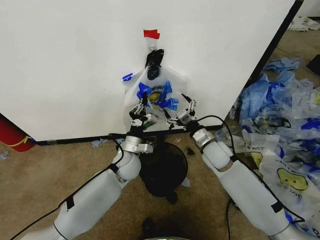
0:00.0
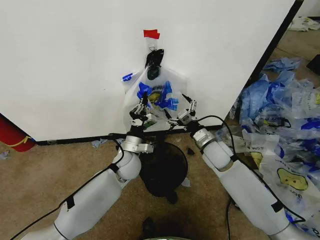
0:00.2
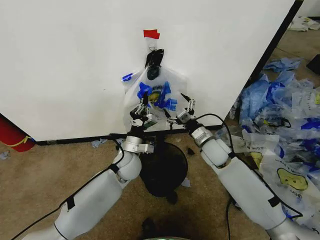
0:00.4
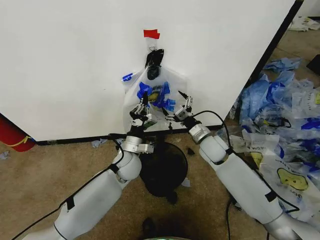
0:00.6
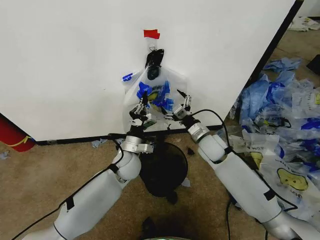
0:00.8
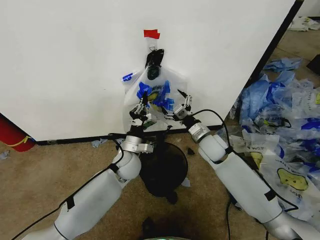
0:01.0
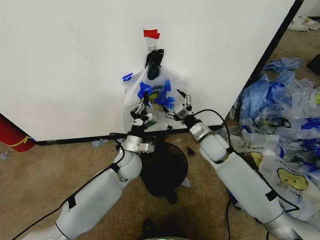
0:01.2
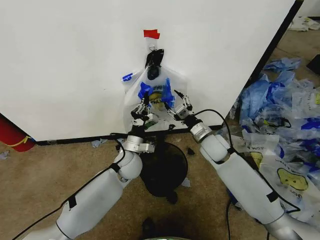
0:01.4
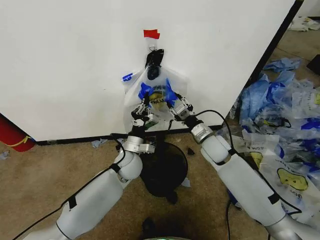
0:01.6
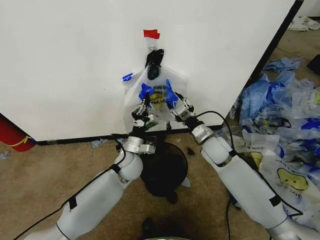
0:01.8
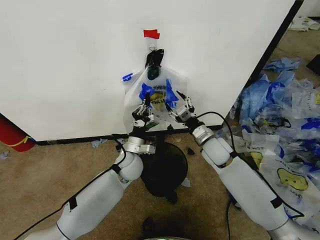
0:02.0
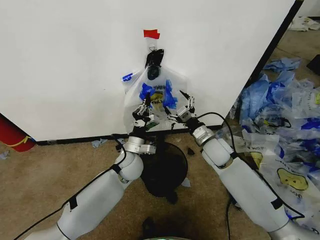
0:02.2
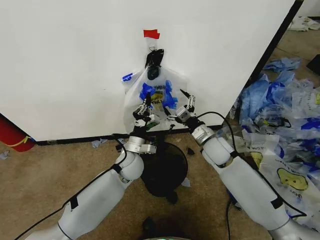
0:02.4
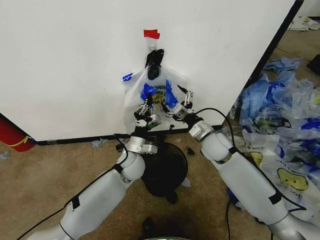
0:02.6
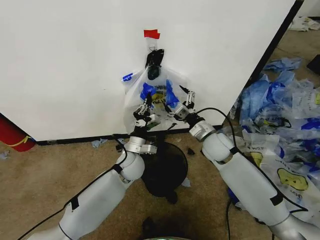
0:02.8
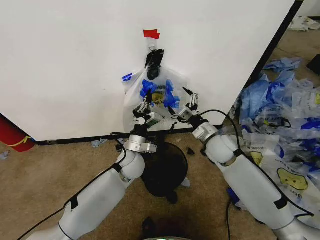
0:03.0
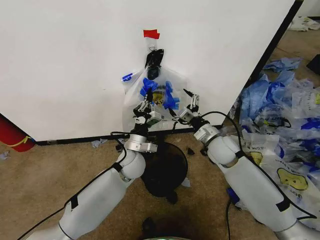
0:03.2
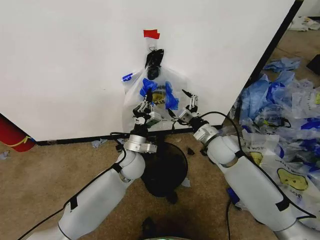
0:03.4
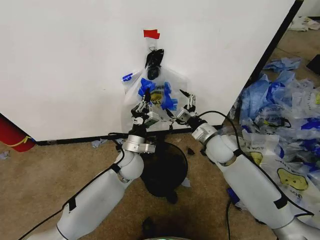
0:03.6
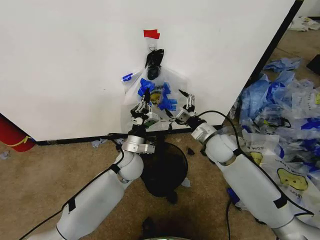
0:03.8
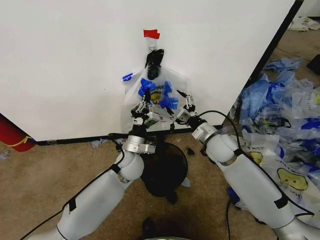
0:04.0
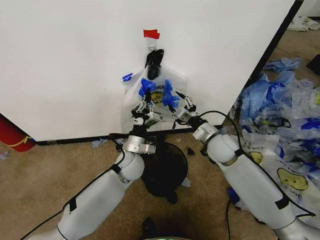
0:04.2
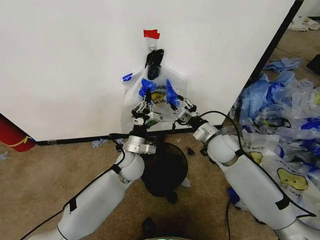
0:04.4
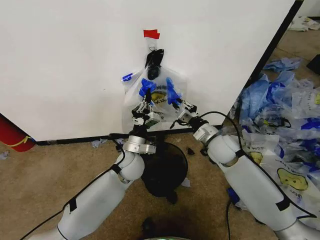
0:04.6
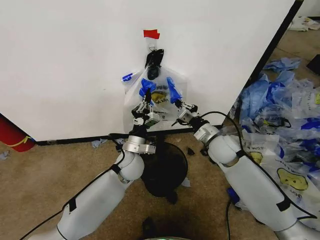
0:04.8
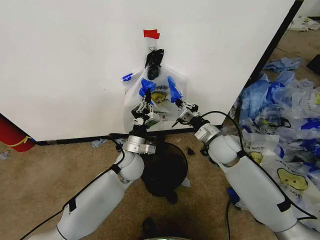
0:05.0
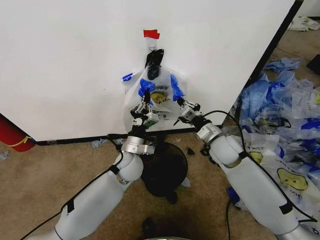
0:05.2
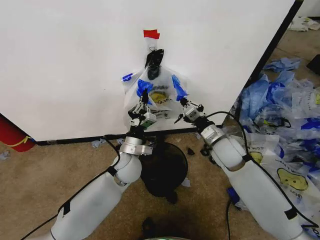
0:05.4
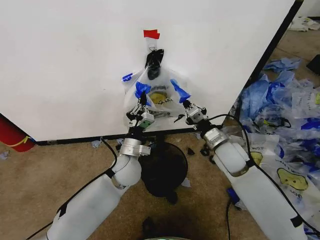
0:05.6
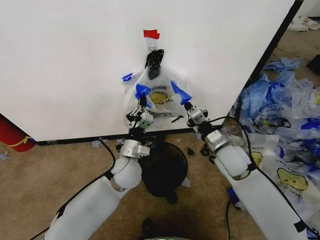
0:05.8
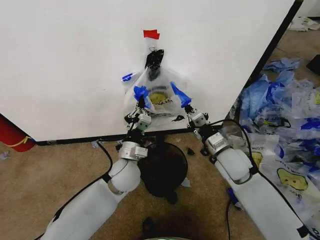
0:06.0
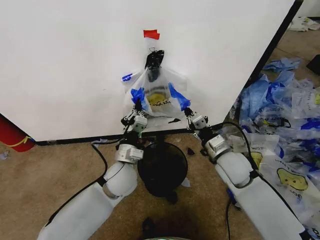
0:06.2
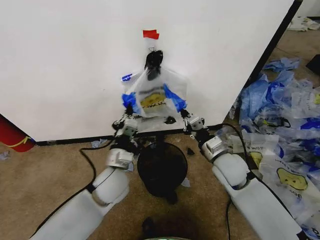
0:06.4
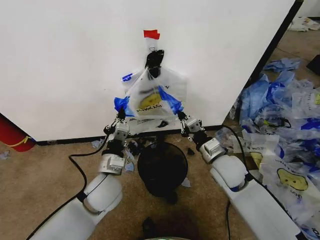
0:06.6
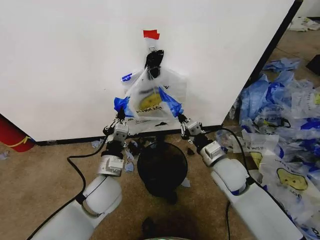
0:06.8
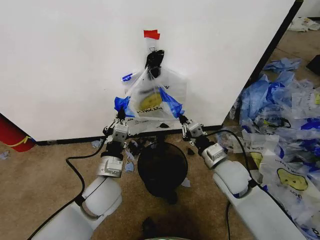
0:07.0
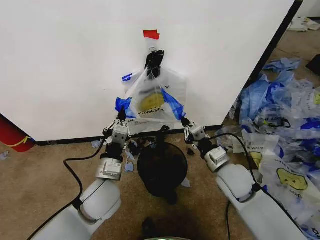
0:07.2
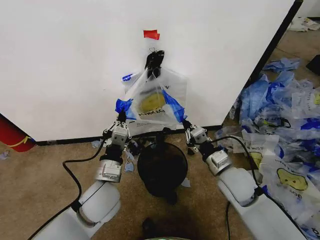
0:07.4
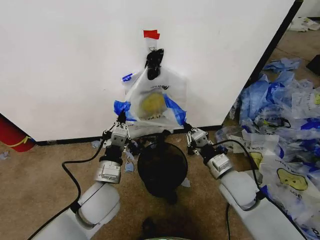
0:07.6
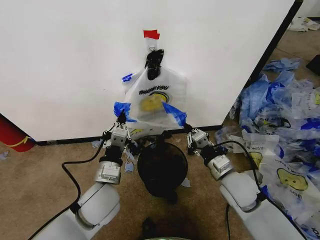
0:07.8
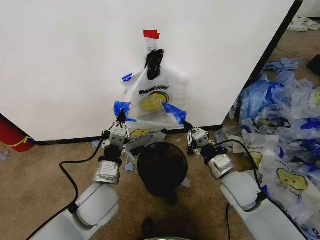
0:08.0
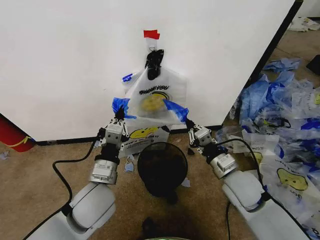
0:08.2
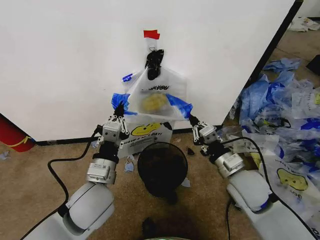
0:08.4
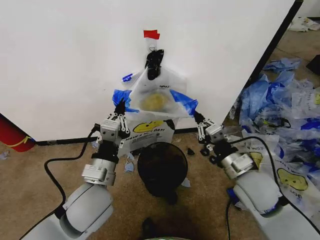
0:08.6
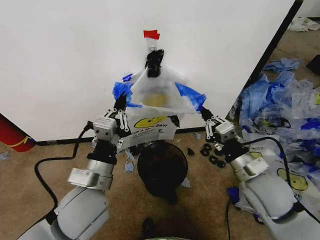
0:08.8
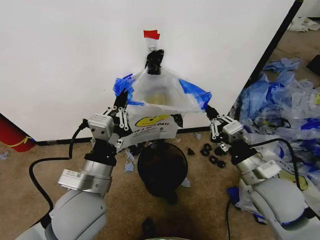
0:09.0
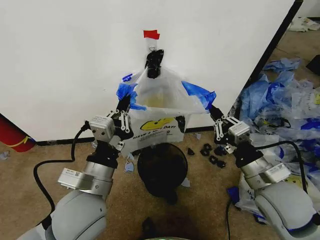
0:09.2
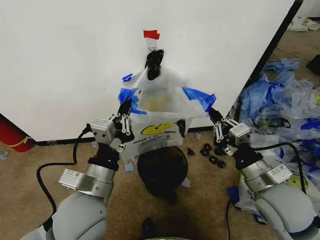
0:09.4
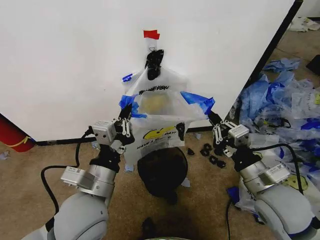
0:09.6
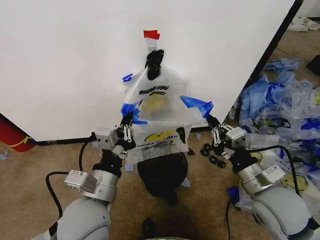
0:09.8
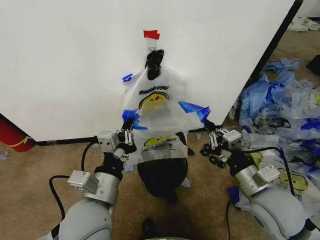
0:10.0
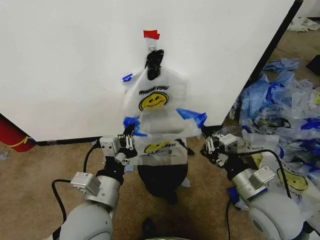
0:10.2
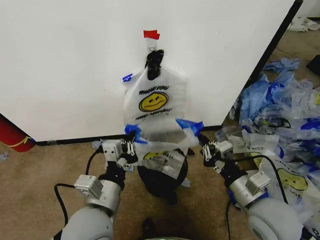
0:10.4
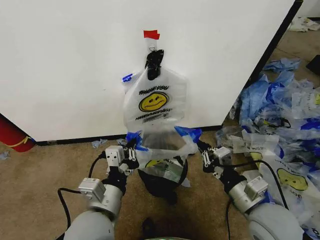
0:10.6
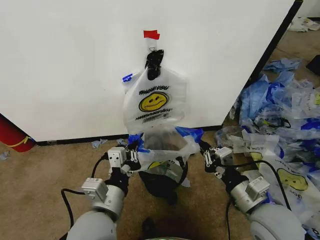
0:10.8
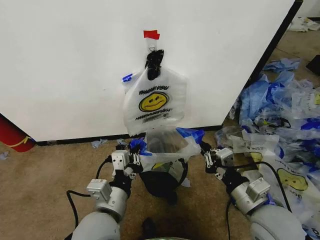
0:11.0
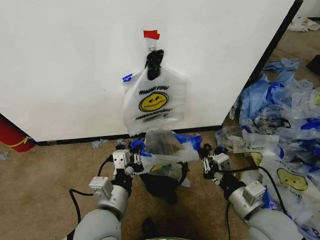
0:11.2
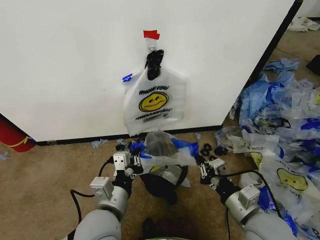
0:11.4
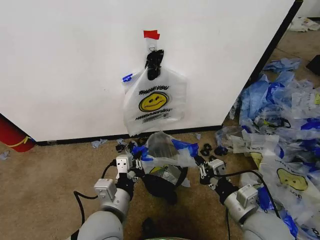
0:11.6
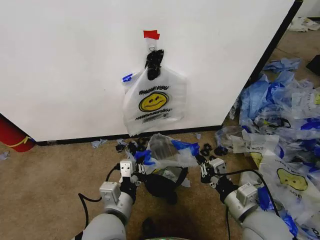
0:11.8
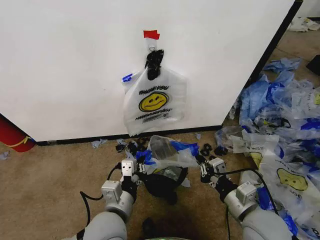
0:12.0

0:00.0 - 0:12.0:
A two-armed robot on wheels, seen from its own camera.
Task of the whole recording: Pick up the garbage bag from the wall and place it over the trash bin.
0:00.0 - 0:01.6: The right gripper closes up.
0:01.6 - 0:03.0: The right gripper opens its fingers.
0:03.0 - 0:04.4: The right gripper closes.
0:04.4 - 0:06.0: The right gripper moves backward, about 5 cm, and closes its fingers. Meanwhile the left gripper changes place by roughly 5 cm.
0:06.0 - 0:07.6: Both grippers travel together backward, about 10 cm.
0:07.6 - 0:09.0: The grippers both shift upward and backward by about 10 cm.
0:09.0 - 0:10.4: The right gripper changes place by some 5 cm.
0:10.4 - 0:12.0: The left gripper moves downward, roughly 5 cm.

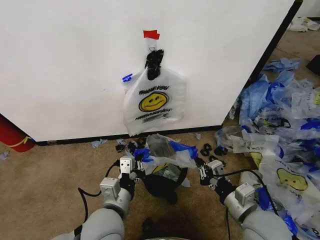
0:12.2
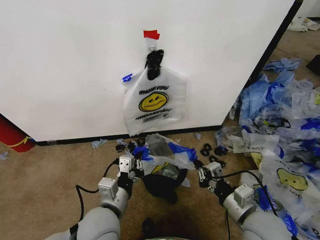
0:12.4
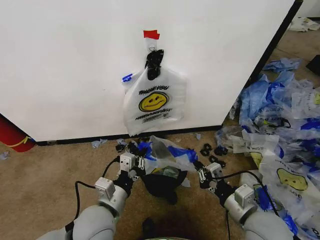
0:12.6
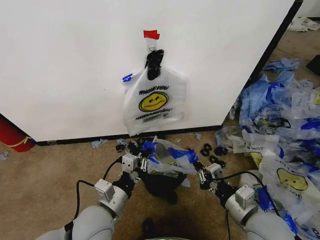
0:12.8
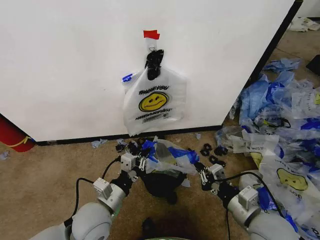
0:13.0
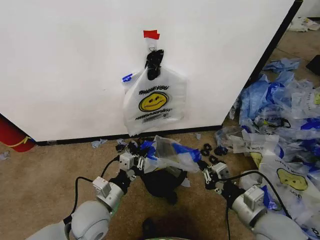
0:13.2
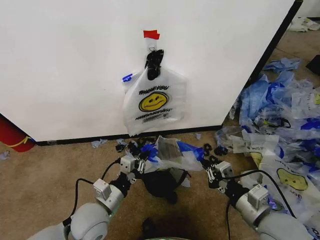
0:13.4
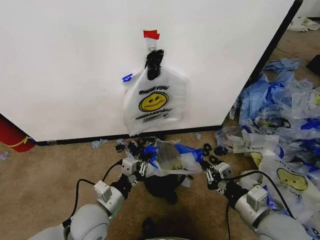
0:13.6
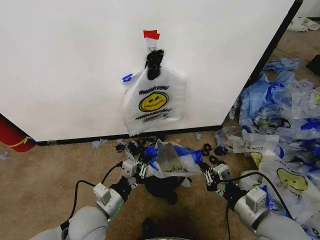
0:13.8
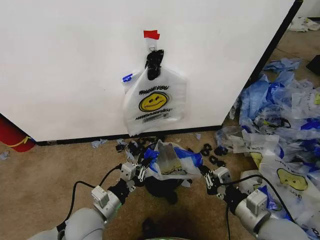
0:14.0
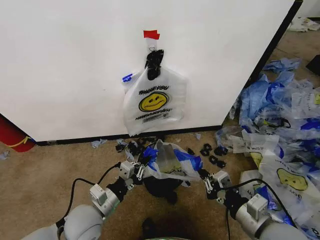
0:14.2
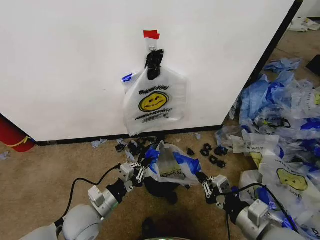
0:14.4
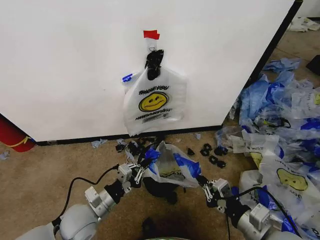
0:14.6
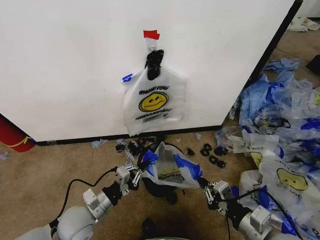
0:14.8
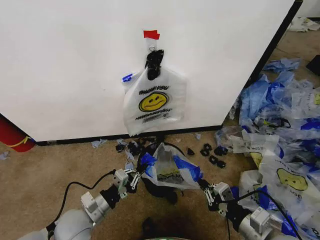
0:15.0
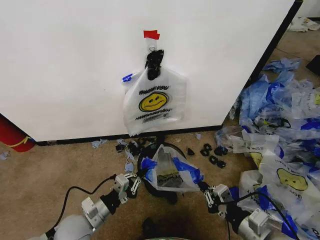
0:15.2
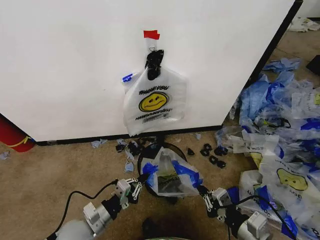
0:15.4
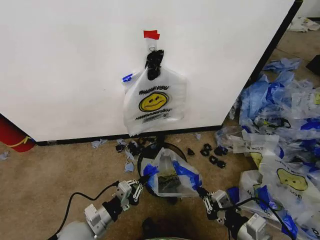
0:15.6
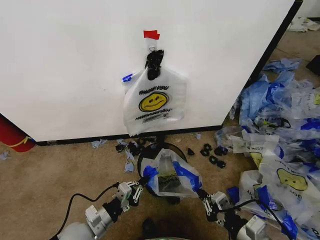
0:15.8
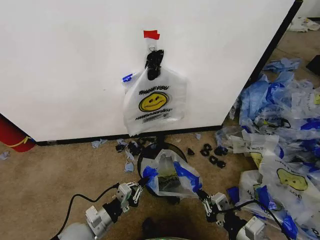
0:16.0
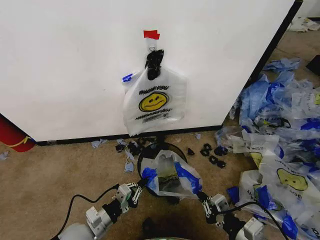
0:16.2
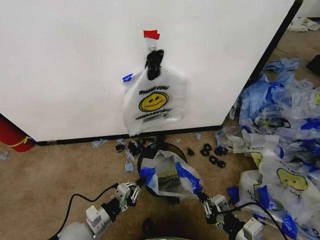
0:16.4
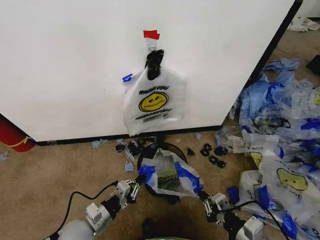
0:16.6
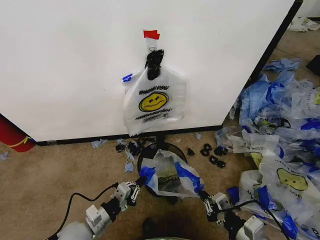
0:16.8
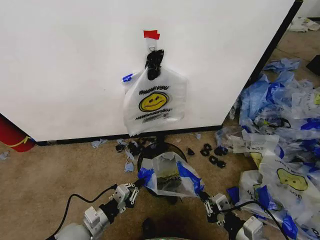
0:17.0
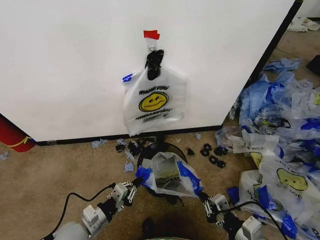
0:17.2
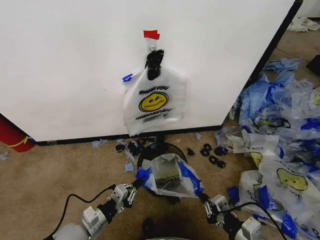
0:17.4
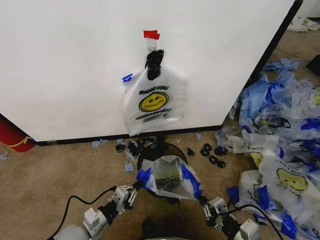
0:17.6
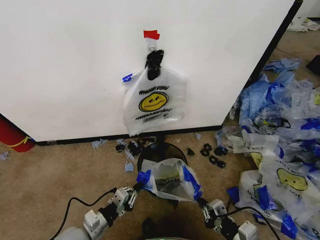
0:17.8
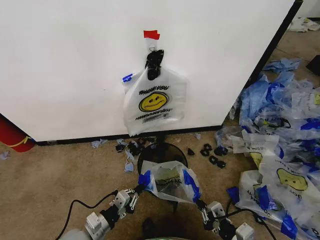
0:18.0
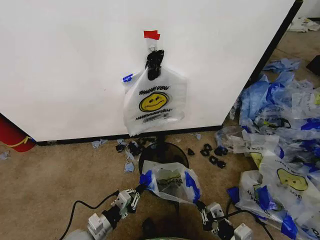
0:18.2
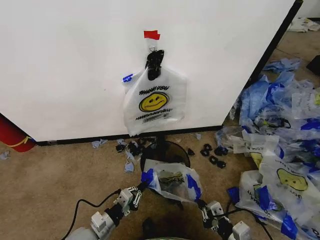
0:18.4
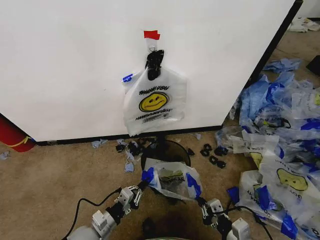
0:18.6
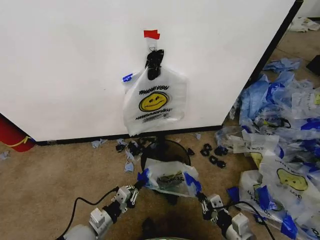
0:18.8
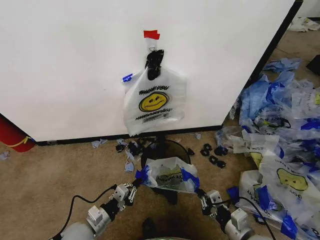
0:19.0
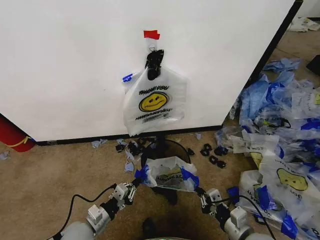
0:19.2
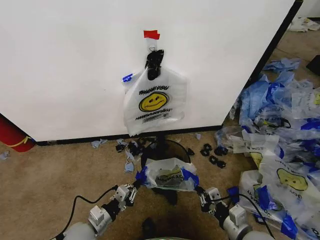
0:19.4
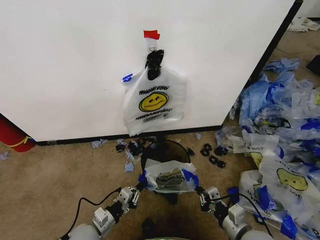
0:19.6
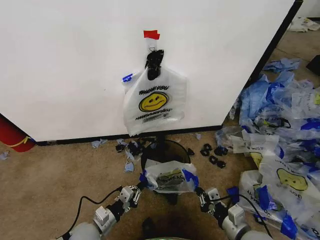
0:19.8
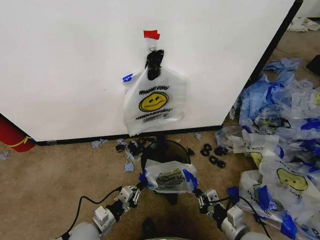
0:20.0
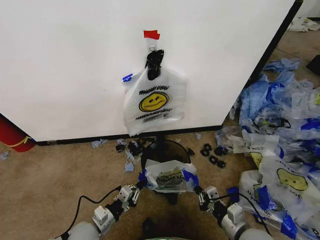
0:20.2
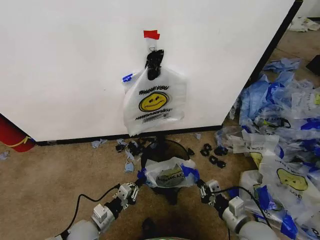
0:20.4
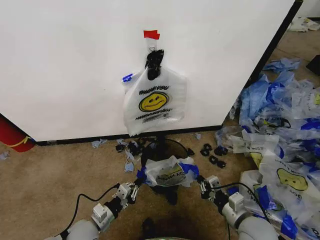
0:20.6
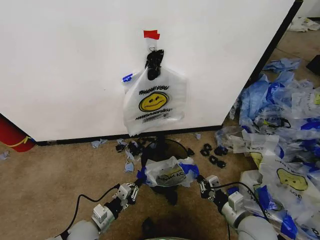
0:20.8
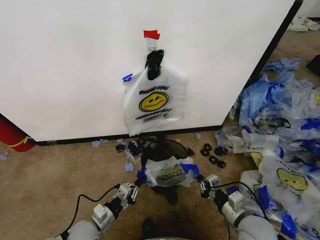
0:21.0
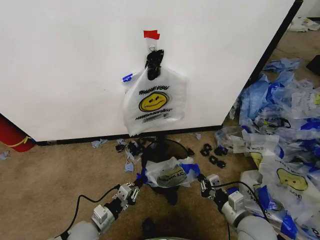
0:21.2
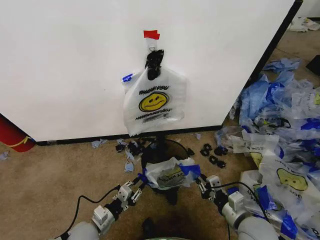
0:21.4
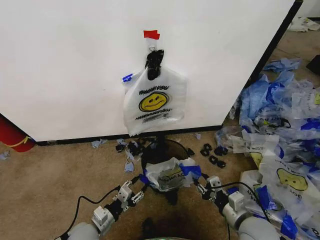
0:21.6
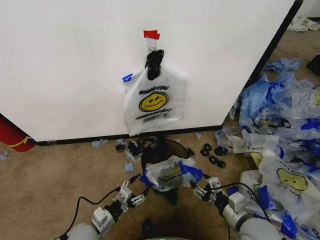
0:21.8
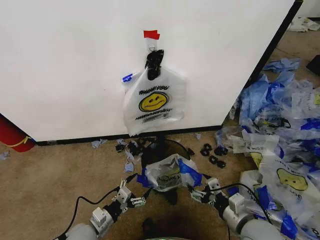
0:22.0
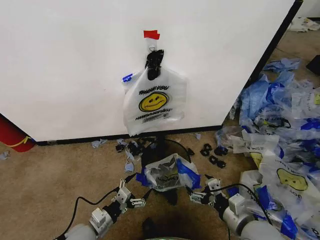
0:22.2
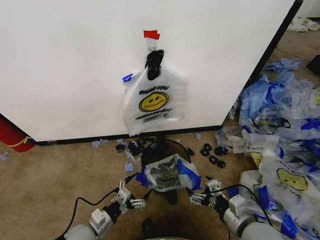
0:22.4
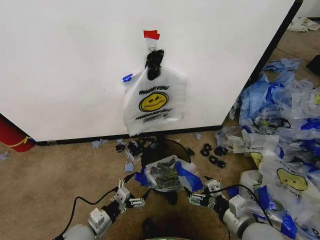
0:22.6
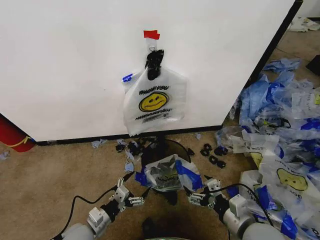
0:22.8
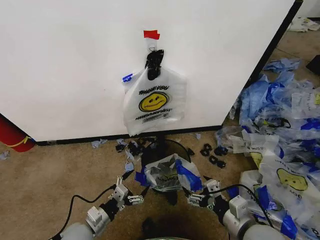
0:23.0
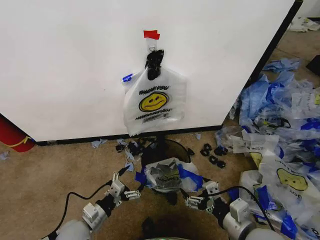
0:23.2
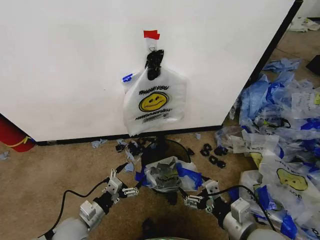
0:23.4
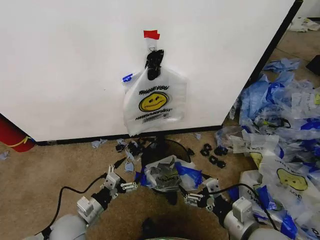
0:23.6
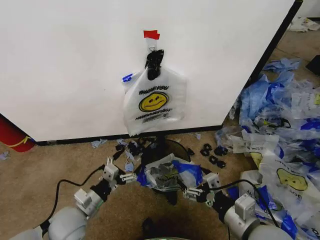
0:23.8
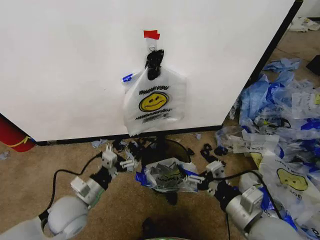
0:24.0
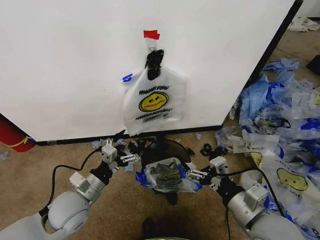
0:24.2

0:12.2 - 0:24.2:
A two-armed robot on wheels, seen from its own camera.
Task of the whole recording: Pick up the garbage bag from the wall and place it over the trash bin.
0:12.2 - 0:13.8: The left gripper travels to the left and downward by about 10 cm.
0:13.8 - 0:15.2: The left gripper shifts about 5 cm to the left.
0:15.2 - 0:16.6: There are only small adjustments of the grippers.
0:16.6 - 0:18.2: The grippers stay close to where they were, moving slightly.
0:18.2 - 0:19.8: The right gripper shifts some 5 cm forward.
0:19.8 - 0:21.2: The grippers move only a little.
0:21.2 - 0:22.6: The left gripper opens; the right gripper travels upward by some 5 cm, and opens up.
0:22.6 - 0:24.2: The left gripper travels upward by some 15 cm; the right gripper travels upward by roughly 10 cm.
